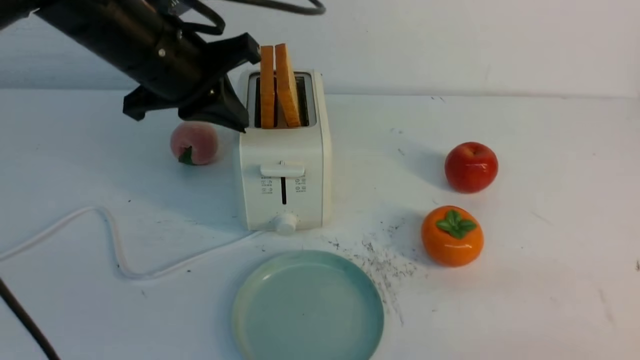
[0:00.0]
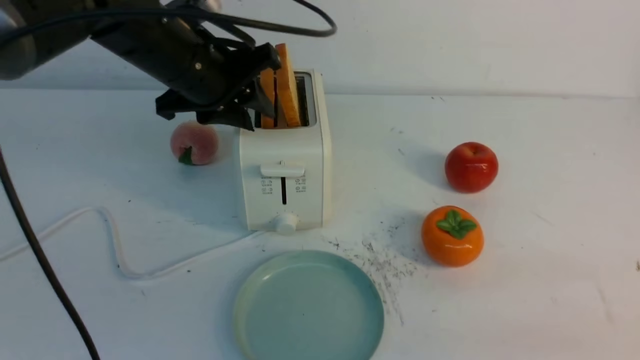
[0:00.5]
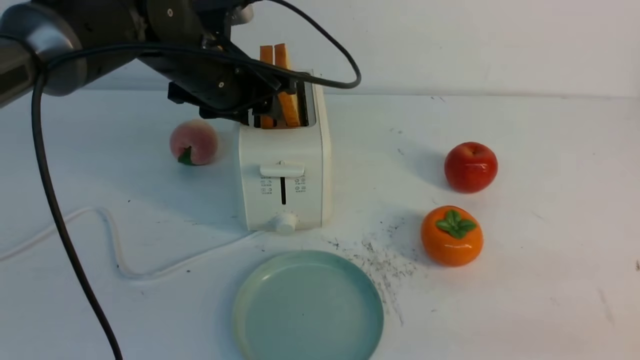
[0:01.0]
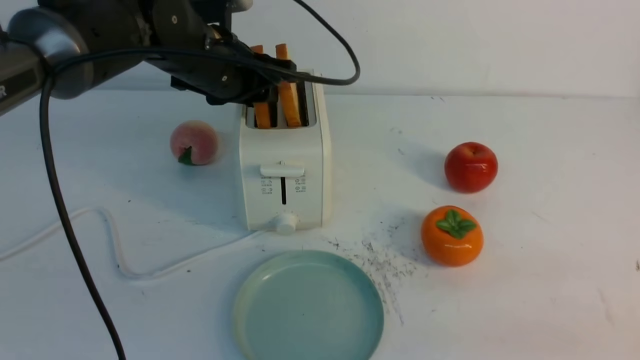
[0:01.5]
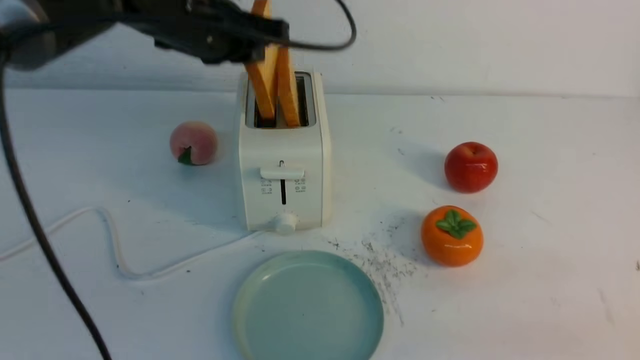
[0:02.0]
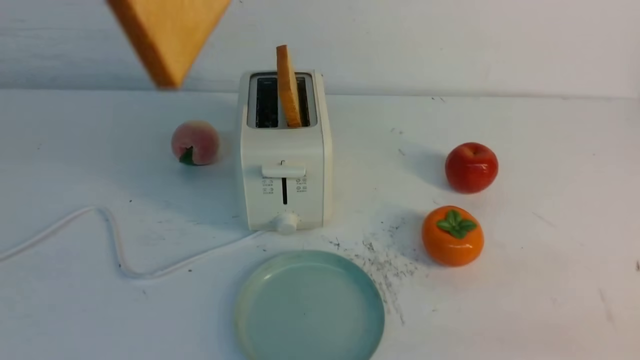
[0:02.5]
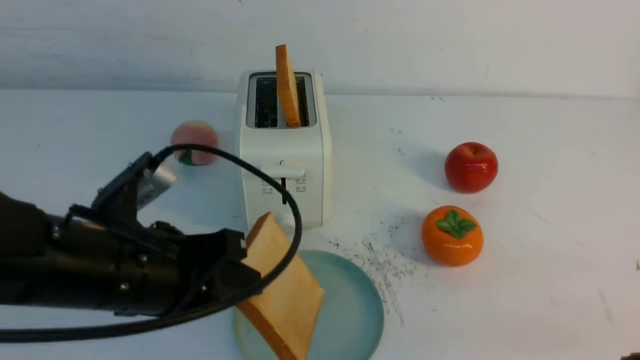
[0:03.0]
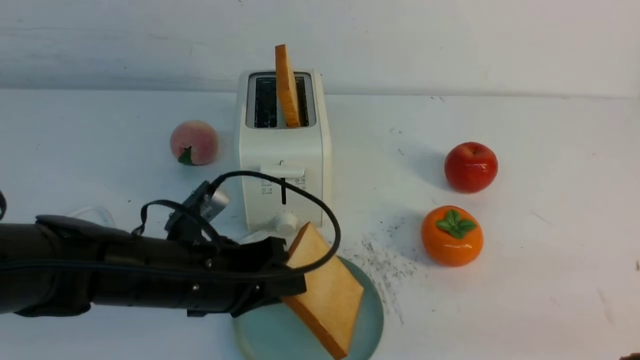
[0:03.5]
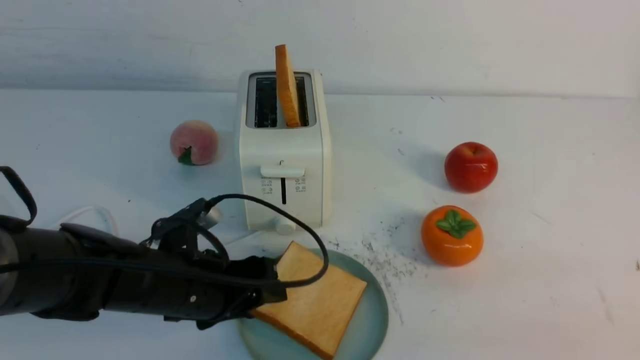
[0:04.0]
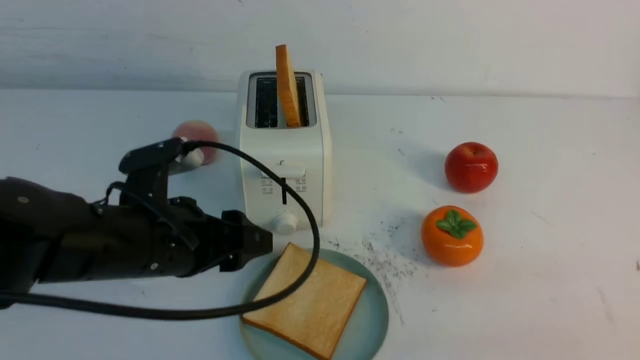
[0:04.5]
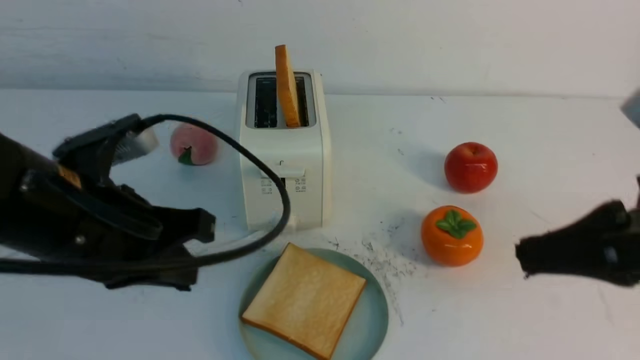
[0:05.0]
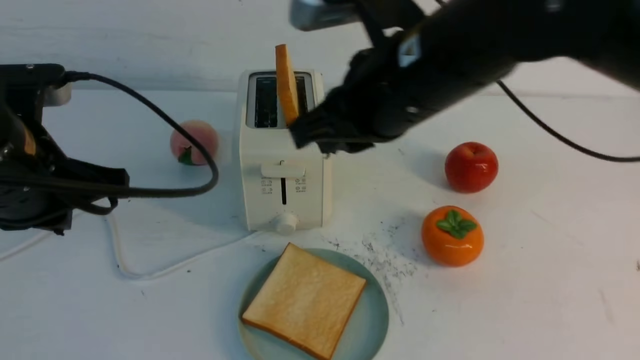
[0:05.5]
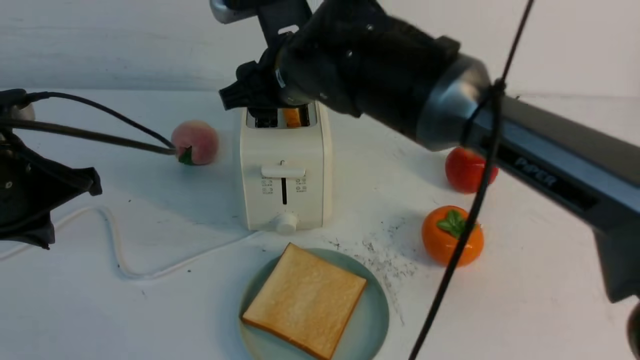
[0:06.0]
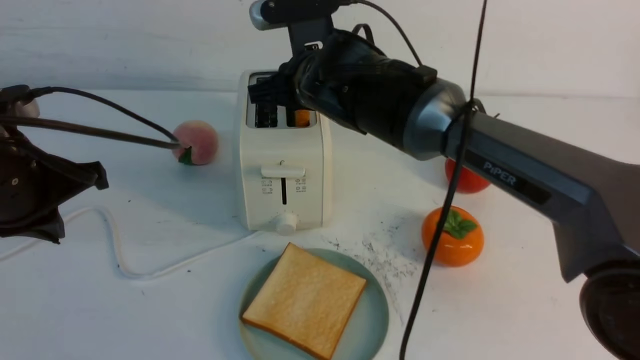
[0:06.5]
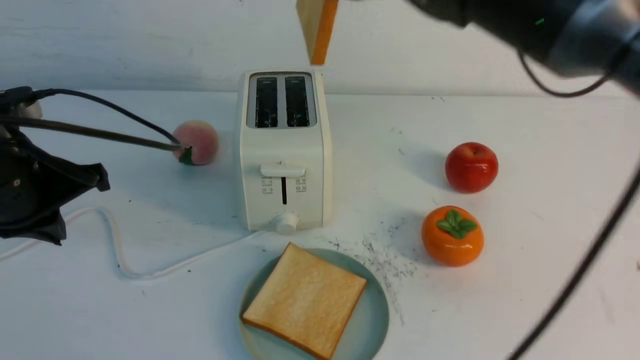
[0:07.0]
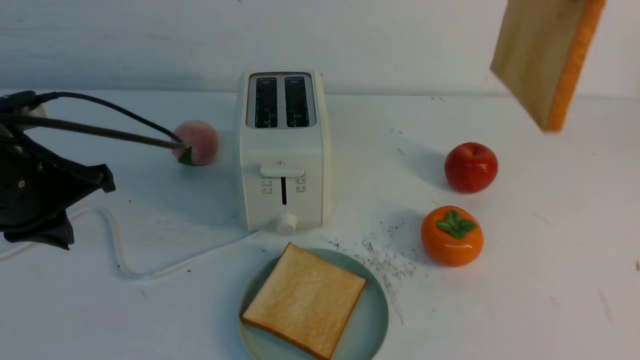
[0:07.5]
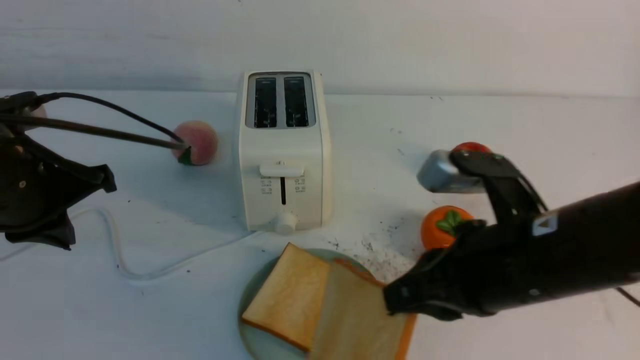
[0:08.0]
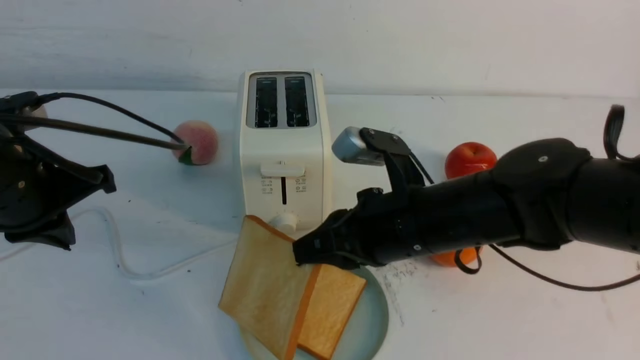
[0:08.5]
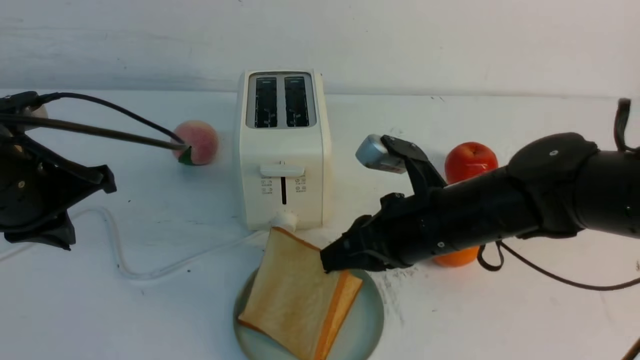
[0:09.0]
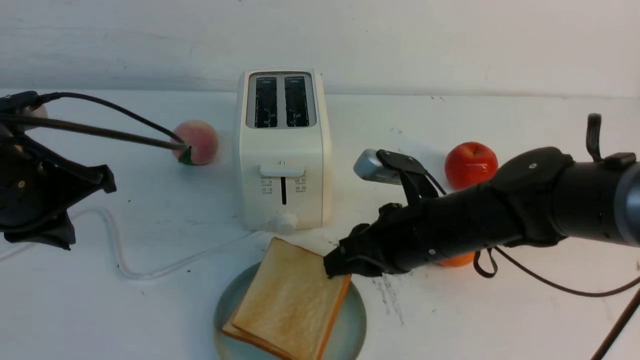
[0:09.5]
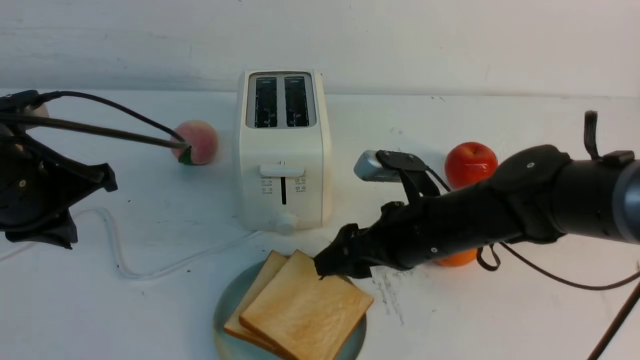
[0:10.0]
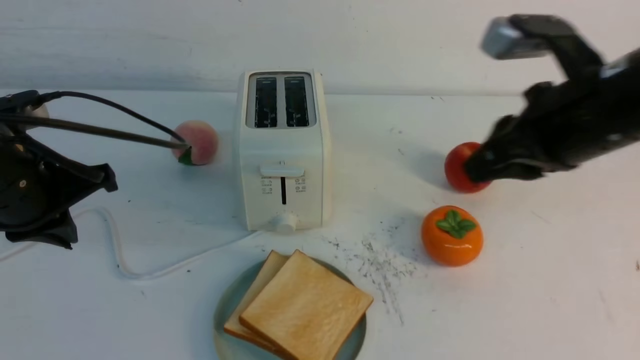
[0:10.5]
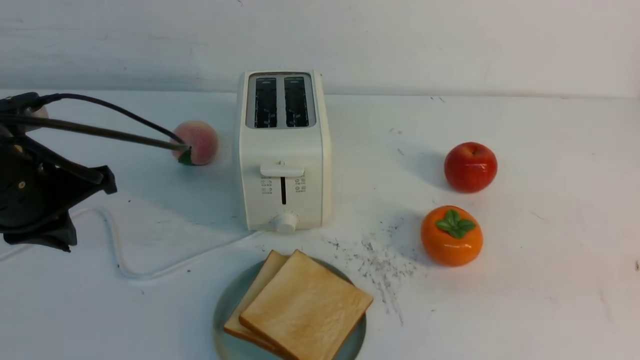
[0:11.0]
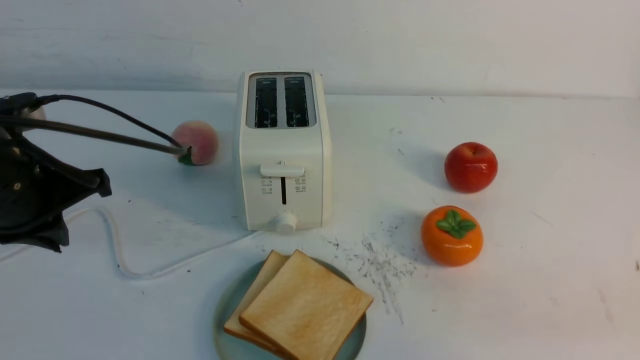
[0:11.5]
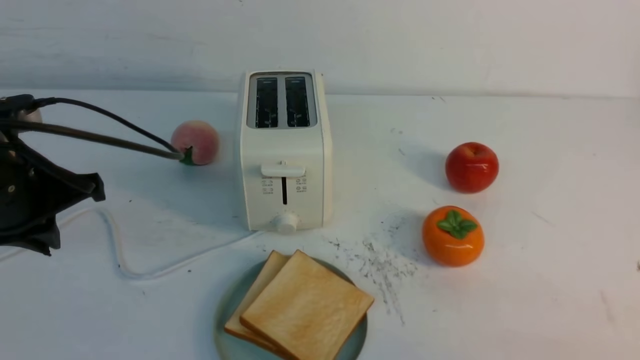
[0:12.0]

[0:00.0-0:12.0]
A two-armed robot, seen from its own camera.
Task of the whole recording: take toasted bread from bread machine on white table place on plate.
Step, 0:00.0 to 0:02.0: use the left arm to take out a slice of bread.
Step, 0:02.5 to 0:04.5: use the left arm to put a slice of bread into the empty plate.
Step, 0:05.0 to 0:06.5: use the right arm to take out a slice of bread.
Step, 0:07.0 to 0:09.5: use the right arm to put a slice of bread into the plate.
0:00.0 to 0:02.0: The left gripper is displaced upward by roughly 5 cm, and opens and closes again.
0:02.0 to 0:04.0: The left gripper shifts some 25 cm downward and backward, and opens its fingers.
0:04.0 to 0:06.0: The left gripper heads upward and to the left, covering roughly 20 cm, and closes its fingers. The right gripper goes roughly 40 cm to the left and forward, and opens up.
0:06.0 to 0:08.0: The right gripper travels backward and to the right by about 20 cm, and closes its fingers.
0:08.0 to 0:10.0: The right gripper travels forward and downward by approximately 10 cm, and opens its fingers.
0:10.0 to 0:12.0: The right gripper heads backward and to the right, covering approximately 30 cm, and closes.

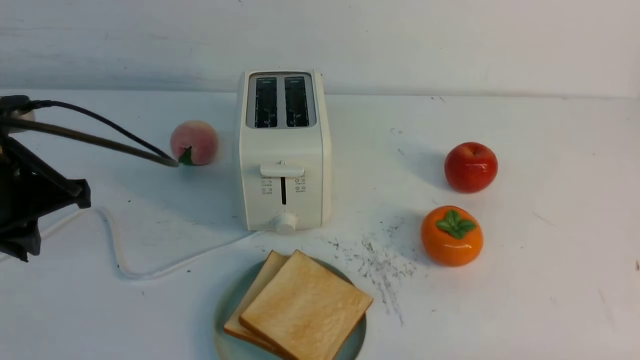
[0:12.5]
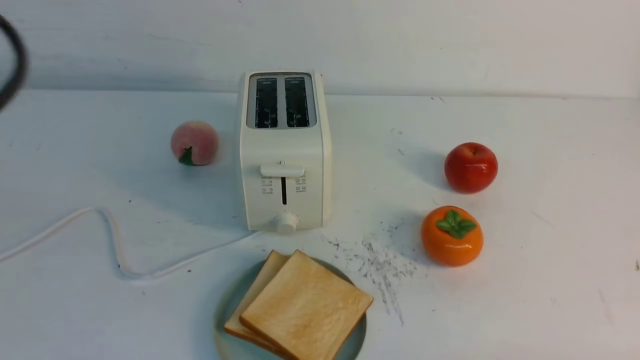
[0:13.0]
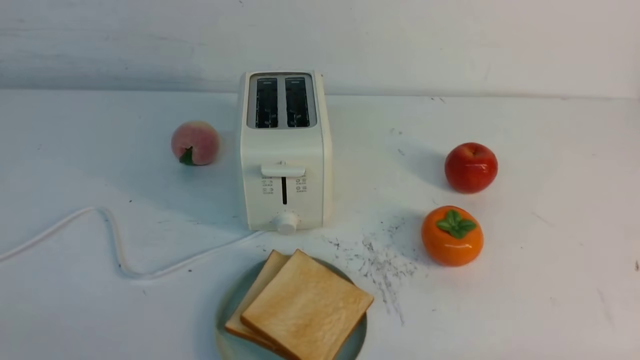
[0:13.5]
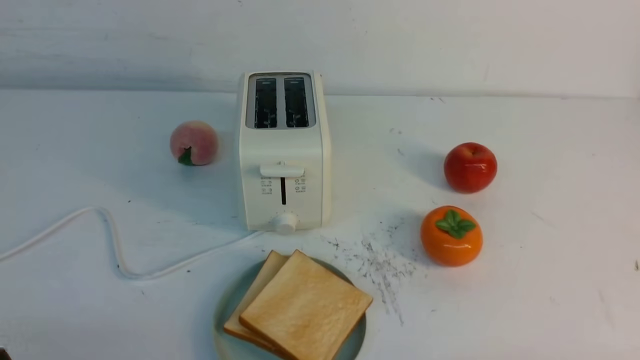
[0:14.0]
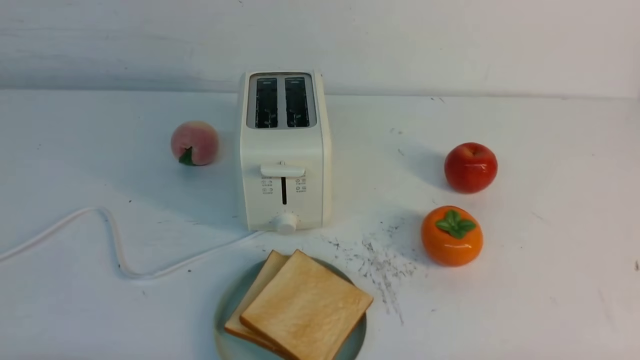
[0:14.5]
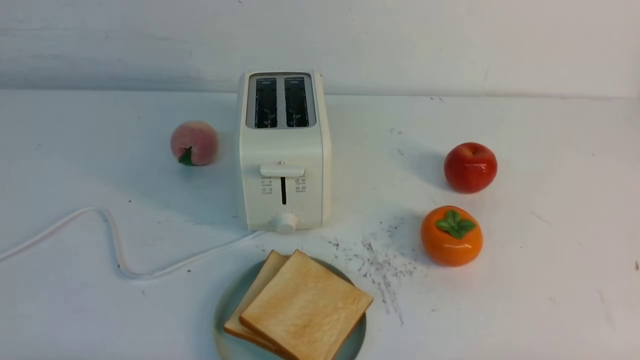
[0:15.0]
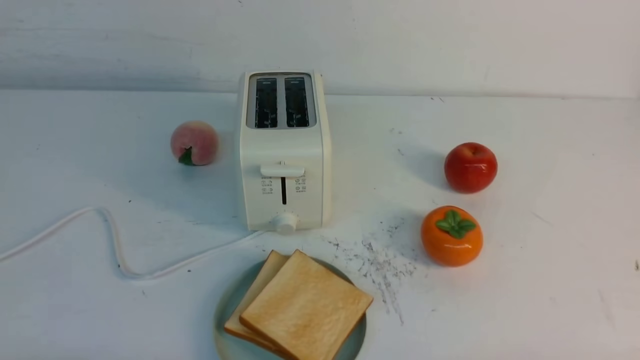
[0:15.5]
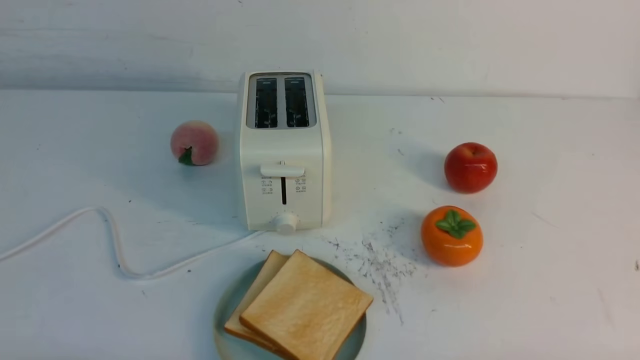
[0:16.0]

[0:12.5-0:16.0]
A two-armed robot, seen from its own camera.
Task of the whole recording: take toasted bread from bread machine on white table place on plate.
0:12.5 to 0:14.5: The left gripper goes approximately 25 cm backward and downward.
0:14.5 to 0:16.0: Neither gripper changes place.

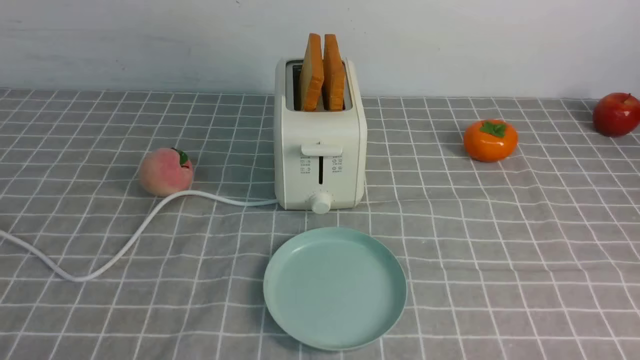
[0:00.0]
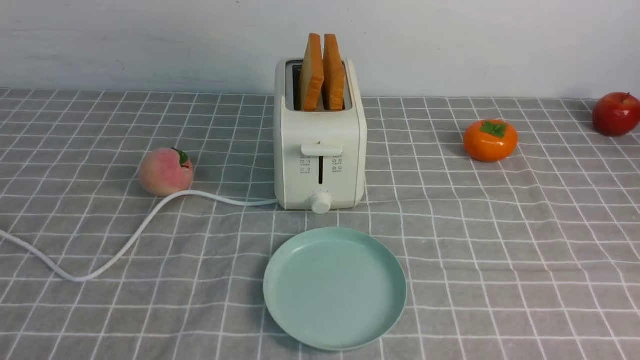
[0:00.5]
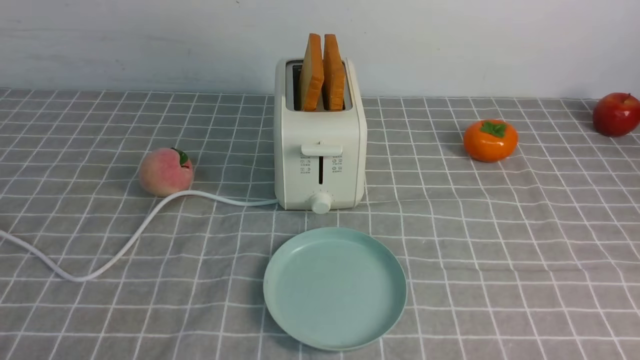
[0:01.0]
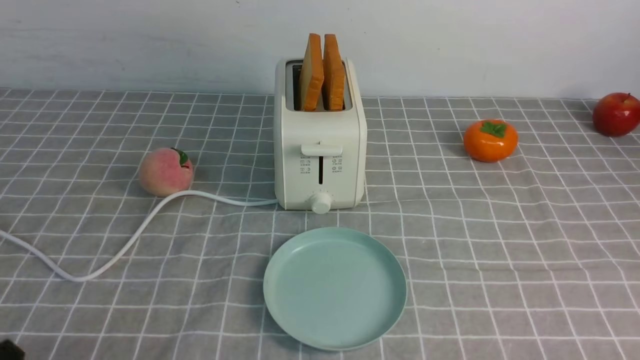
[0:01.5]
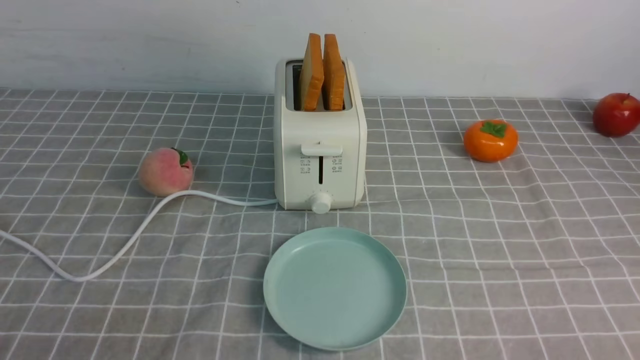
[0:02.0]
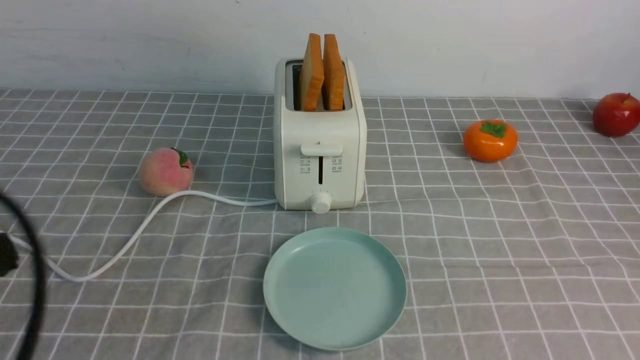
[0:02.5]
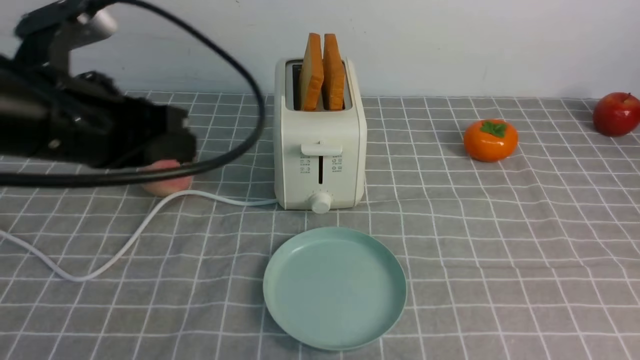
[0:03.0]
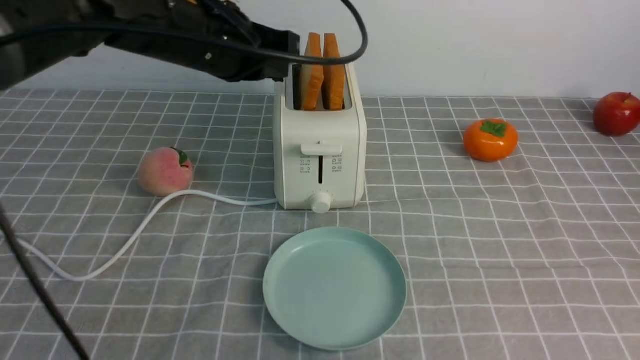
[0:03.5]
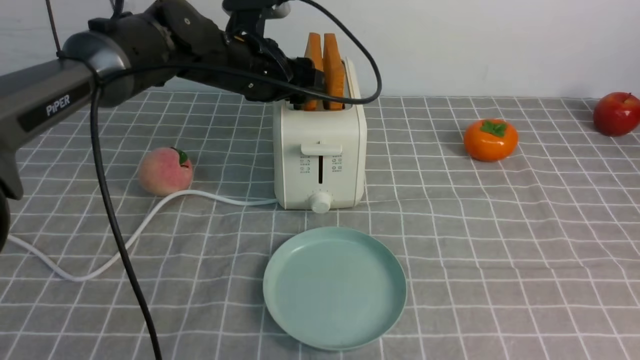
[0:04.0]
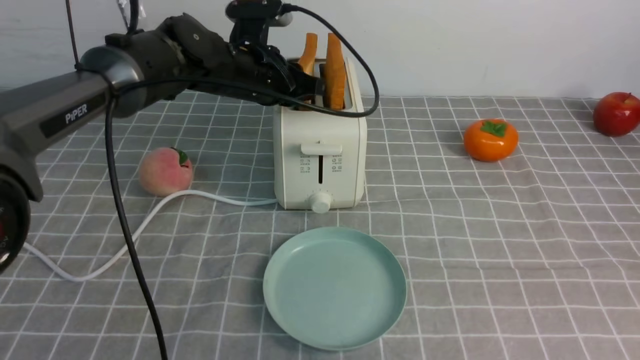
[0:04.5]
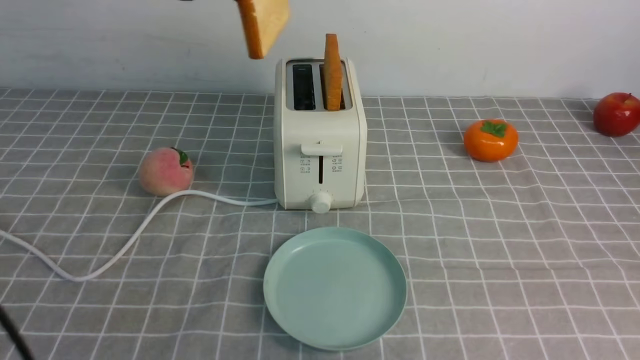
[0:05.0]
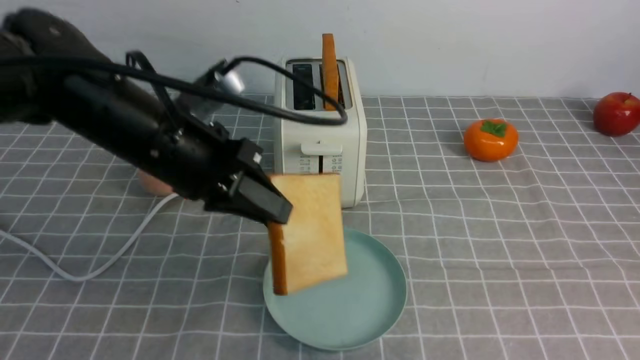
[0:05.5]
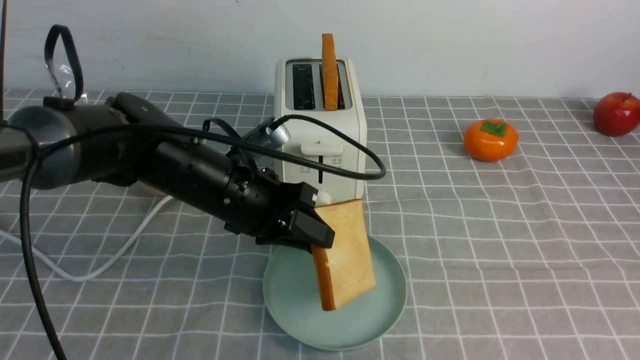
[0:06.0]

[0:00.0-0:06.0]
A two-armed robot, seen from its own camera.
Task of the whole recording: take toasted bread from bread machine on grey coffee table place on plate.
Step, 0:00.0 to 0:04.5: use the left arm to take out a slice of bread.
0:02.0 to 0:04.0: The right gripper heads upward and forward, covering some 15 cm, and closes its fingers, while the left gripper is displaced forward and to the right by approximately 40 cm, and opens.
0:04.0 to 0:06.0: The left gripper shifts approximately 15 cm backward and downward, and closes.
